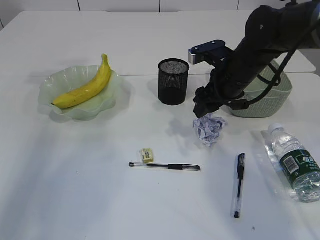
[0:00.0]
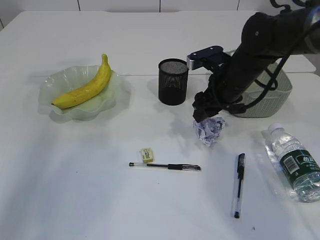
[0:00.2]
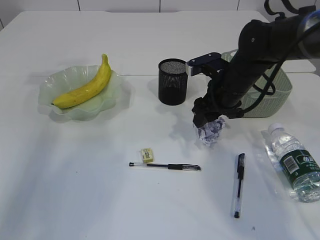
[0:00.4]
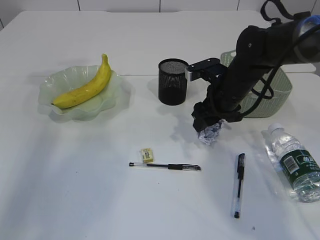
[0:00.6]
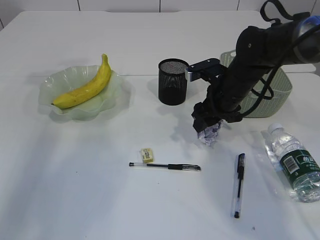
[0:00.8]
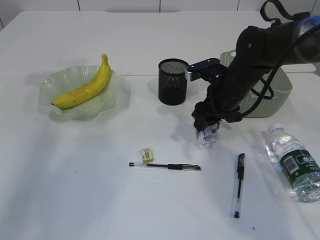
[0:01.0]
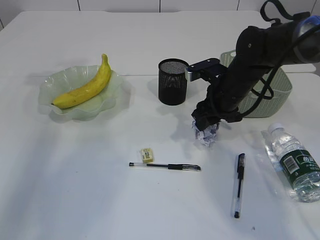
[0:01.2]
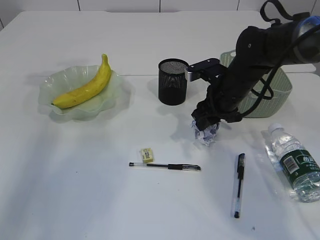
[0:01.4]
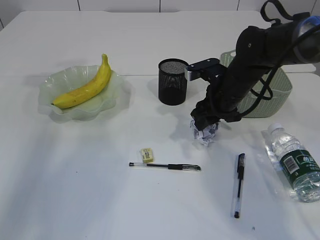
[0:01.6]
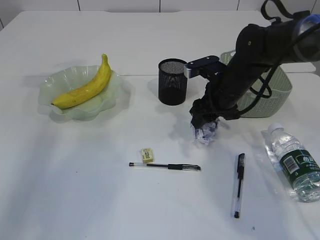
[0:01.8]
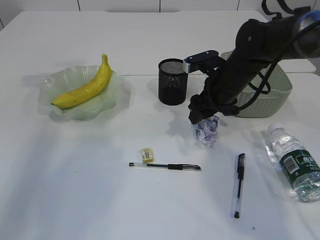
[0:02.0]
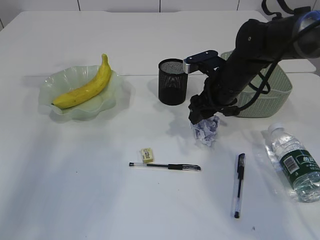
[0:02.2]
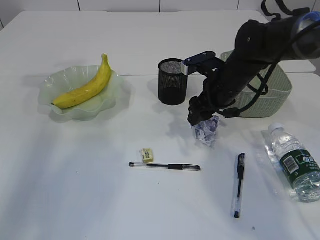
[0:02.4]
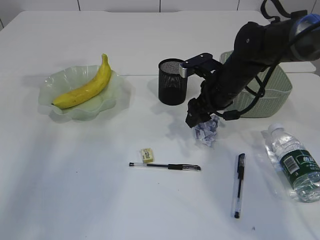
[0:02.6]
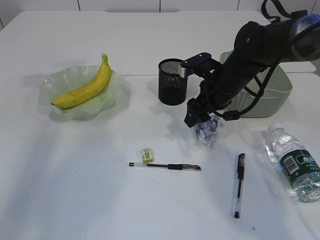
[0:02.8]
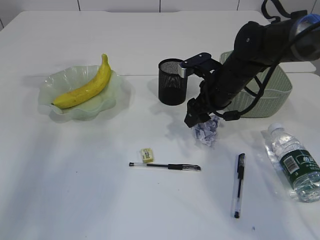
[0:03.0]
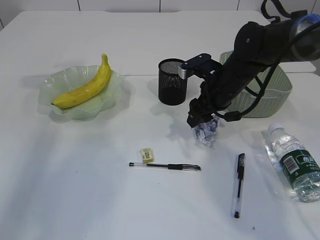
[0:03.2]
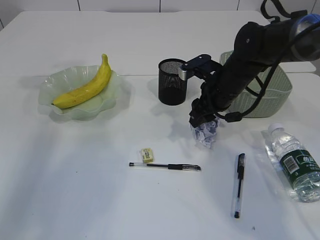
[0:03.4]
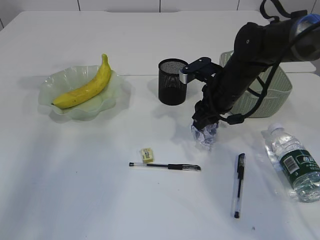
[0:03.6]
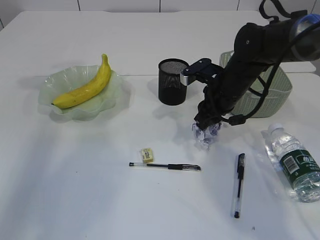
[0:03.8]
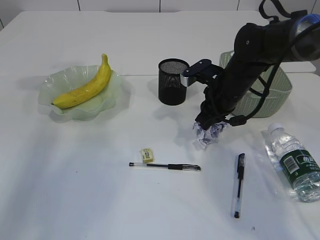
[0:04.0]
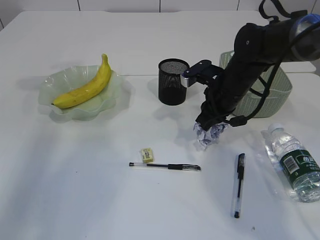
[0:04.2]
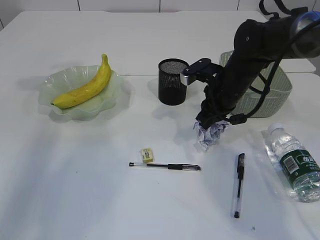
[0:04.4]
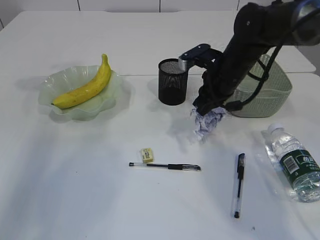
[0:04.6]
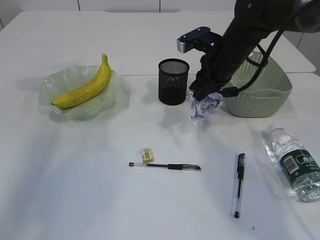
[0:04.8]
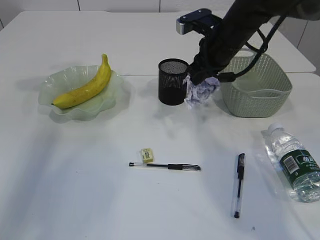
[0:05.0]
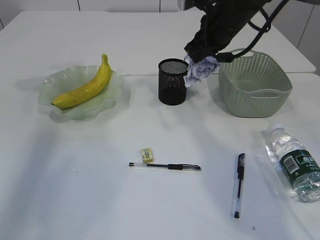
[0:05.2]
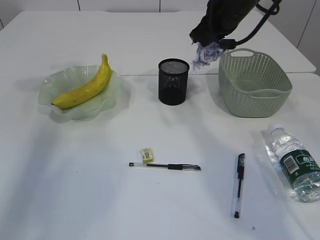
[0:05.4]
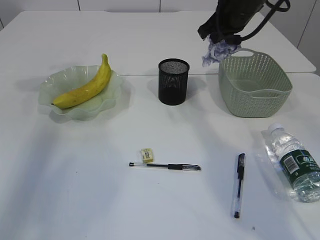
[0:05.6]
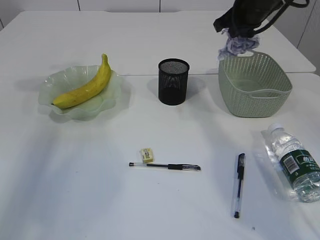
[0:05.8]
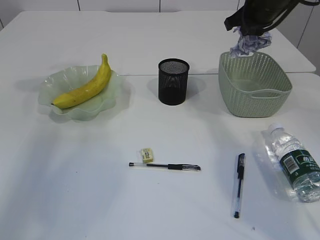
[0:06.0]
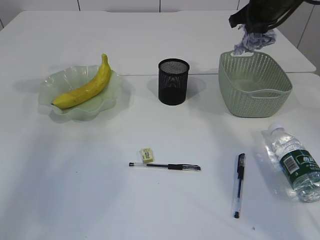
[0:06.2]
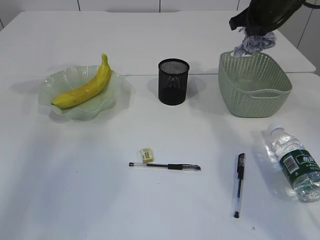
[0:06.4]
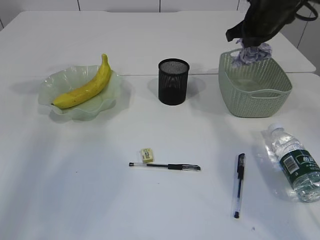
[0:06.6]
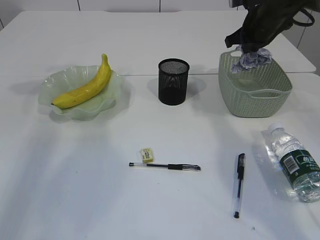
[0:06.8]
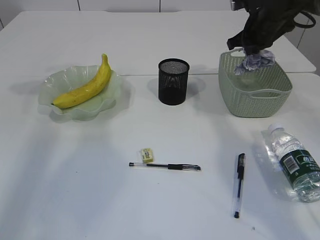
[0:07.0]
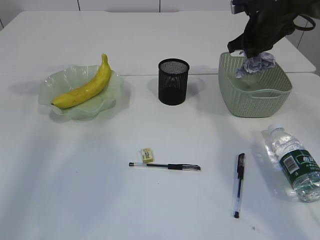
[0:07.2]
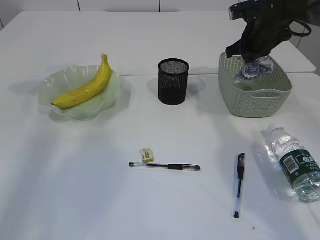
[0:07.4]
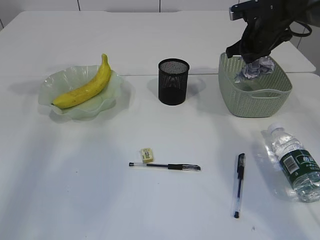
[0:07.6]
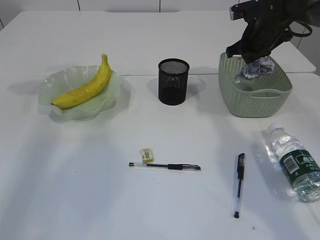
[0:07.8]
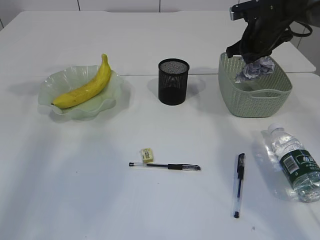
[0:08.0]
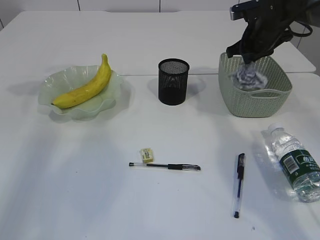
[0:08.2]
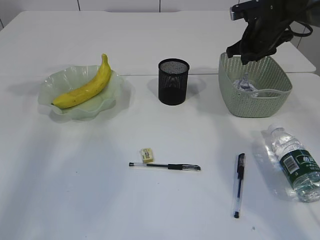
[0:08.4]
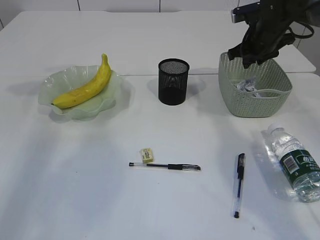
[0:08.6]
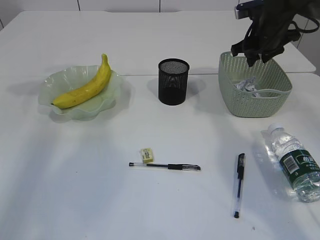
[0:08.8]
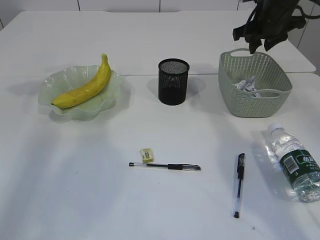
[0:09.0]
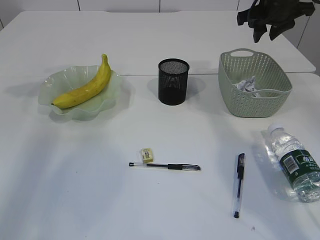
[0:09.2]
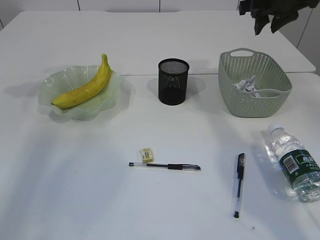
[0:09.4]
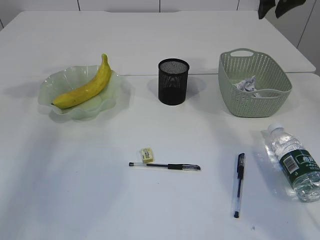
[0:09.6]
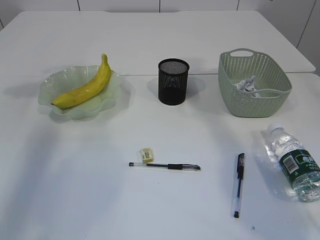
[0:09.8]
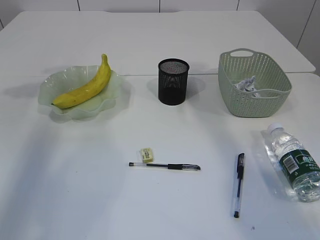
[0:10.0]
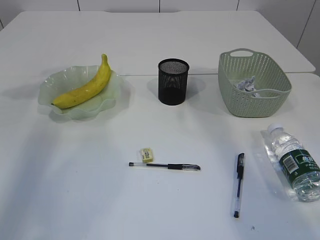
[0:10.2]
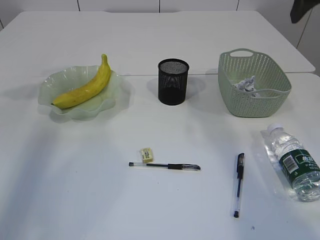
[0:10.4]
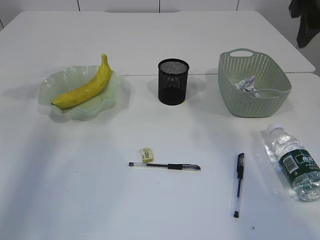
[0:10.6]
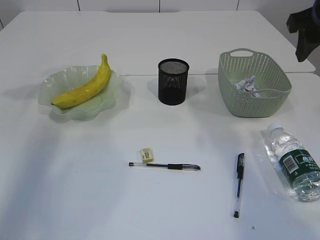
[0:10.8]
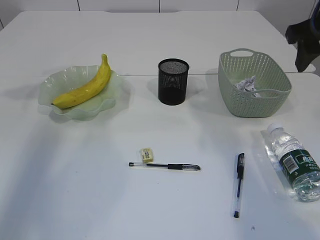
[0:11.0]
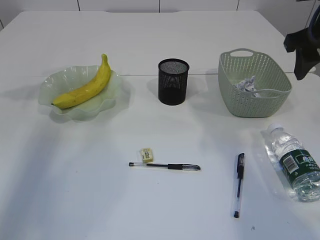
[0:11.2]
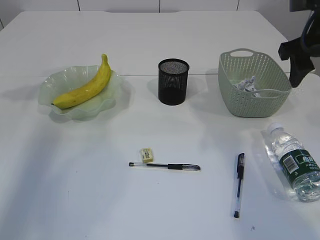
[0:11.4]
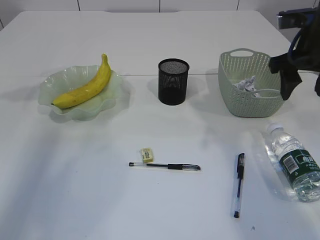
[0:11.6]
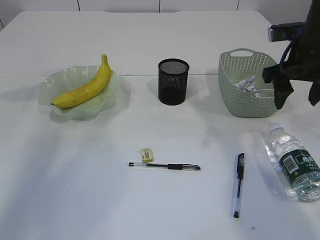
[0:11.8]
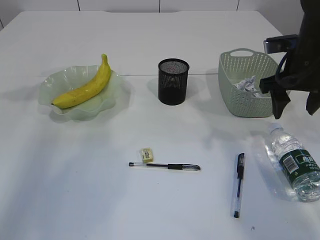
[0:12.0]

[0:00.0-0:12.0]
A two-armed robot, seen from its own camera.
Step, 0:00.0 to 0:04.6: Pick up the waste paper.
Step, 0:04.8 to 0:08.8: Place the waste paper in the basket.
0:00.0 to 0:03.0: The grippers stay close to where they were, moving slightly.
0:03.0 to 0:04.4: The right gripper closes up.
0:04.4 to 0:06.0: The right gripper shifts some 15 cm upward, to the right and forward.
0:06.0 to 0:07.6: The right gripper travels downward by approximately 5 cm.
0:07.6 to 0:09.0: The right gripper opens up.
0:09.0 to 0:10.4: The right gripper shifts roughly 20 cm backward and upward.
0:10.4 to 0:12.0: The right gripper is displaced downward by some 15 cm.

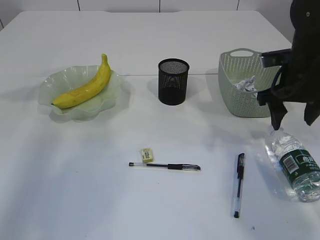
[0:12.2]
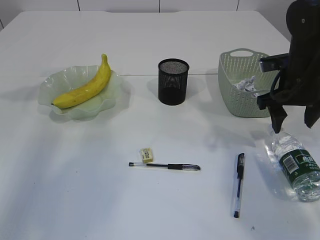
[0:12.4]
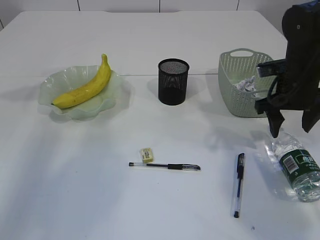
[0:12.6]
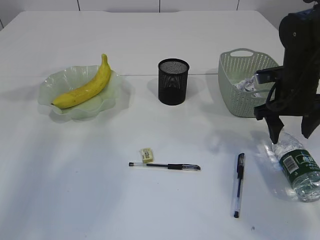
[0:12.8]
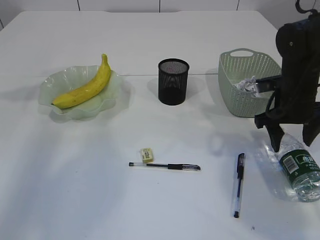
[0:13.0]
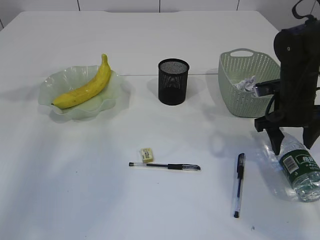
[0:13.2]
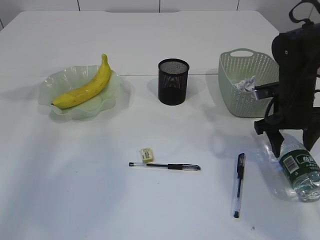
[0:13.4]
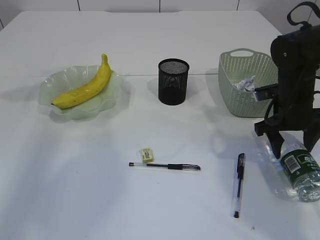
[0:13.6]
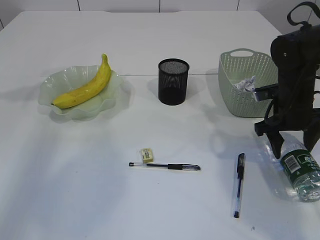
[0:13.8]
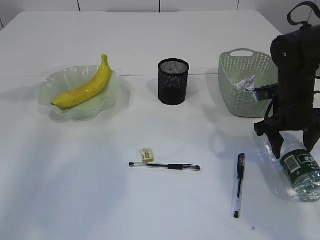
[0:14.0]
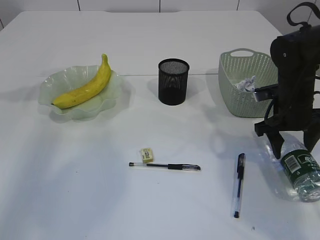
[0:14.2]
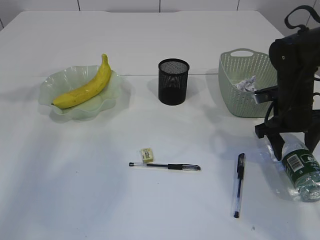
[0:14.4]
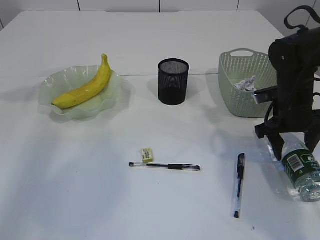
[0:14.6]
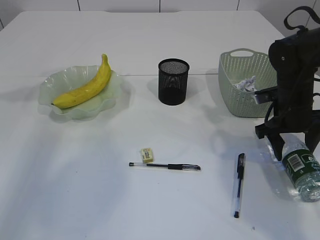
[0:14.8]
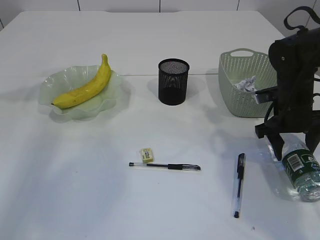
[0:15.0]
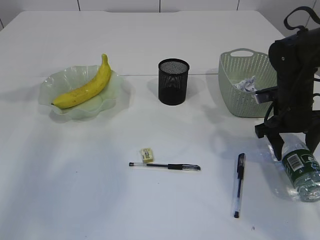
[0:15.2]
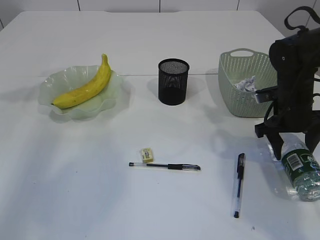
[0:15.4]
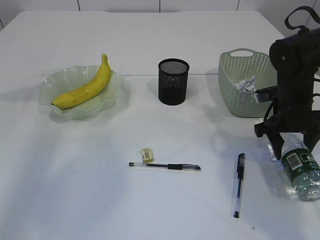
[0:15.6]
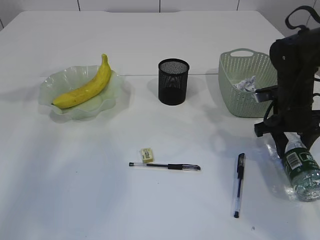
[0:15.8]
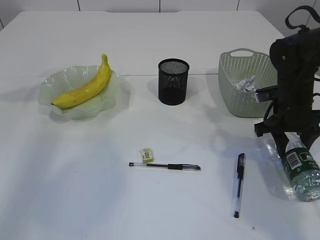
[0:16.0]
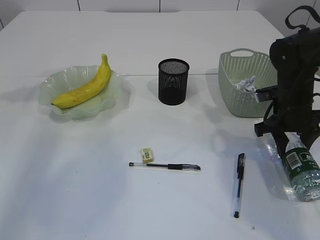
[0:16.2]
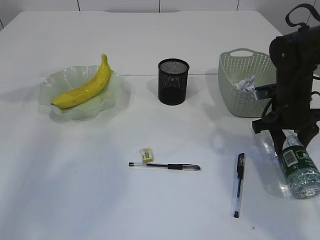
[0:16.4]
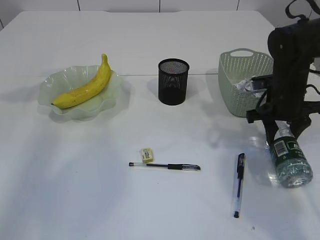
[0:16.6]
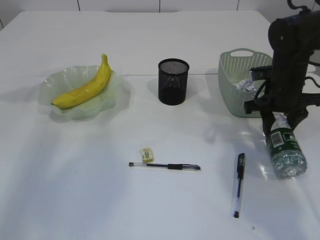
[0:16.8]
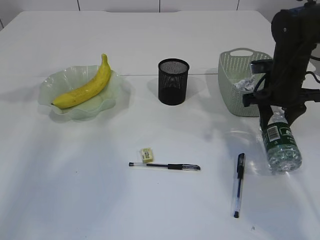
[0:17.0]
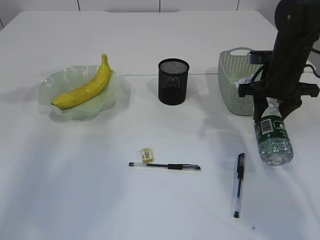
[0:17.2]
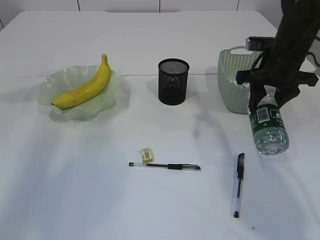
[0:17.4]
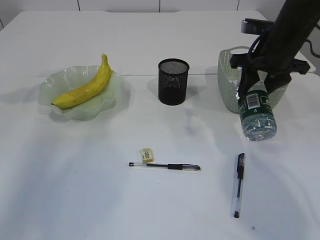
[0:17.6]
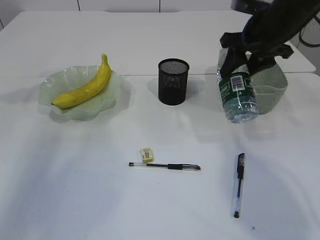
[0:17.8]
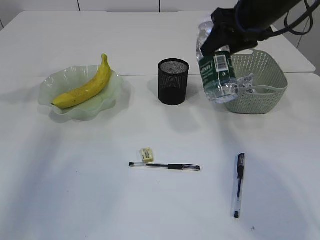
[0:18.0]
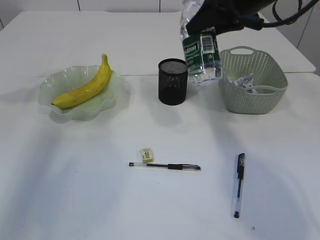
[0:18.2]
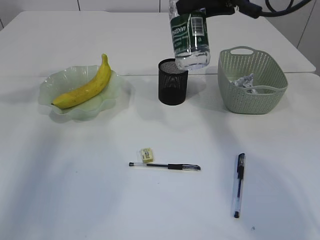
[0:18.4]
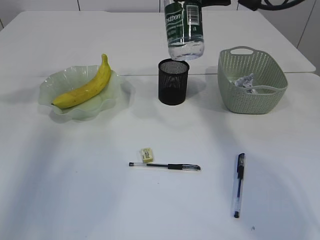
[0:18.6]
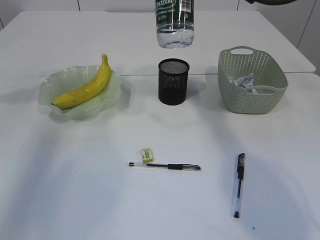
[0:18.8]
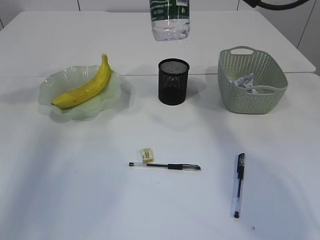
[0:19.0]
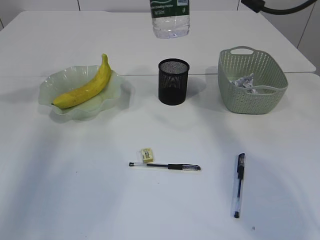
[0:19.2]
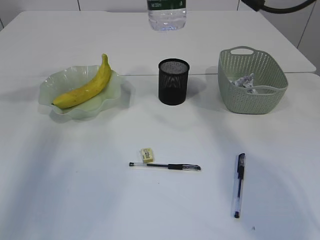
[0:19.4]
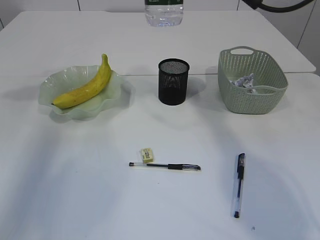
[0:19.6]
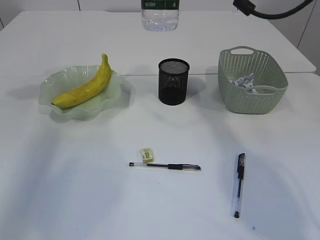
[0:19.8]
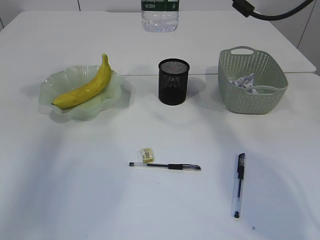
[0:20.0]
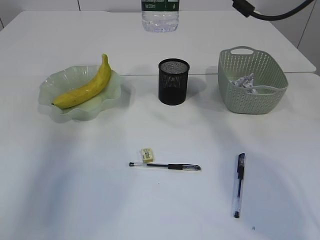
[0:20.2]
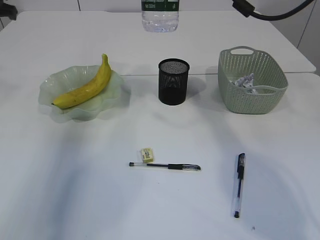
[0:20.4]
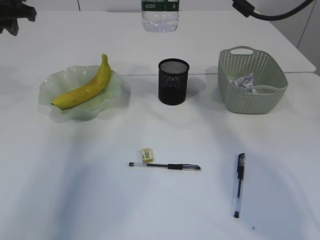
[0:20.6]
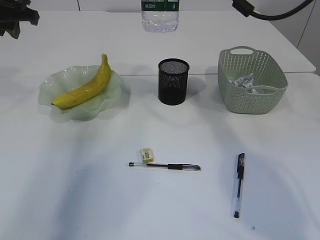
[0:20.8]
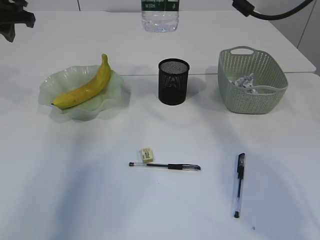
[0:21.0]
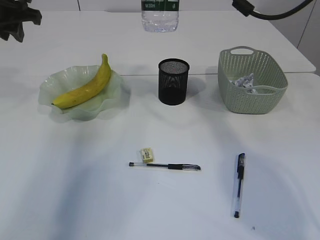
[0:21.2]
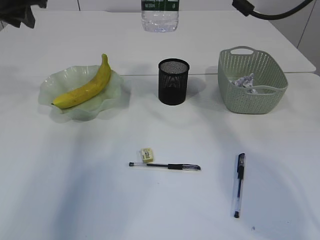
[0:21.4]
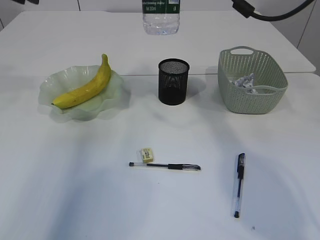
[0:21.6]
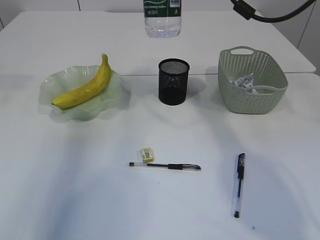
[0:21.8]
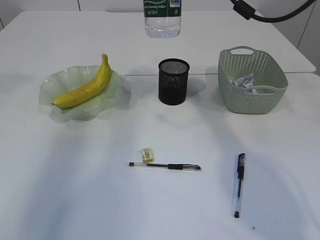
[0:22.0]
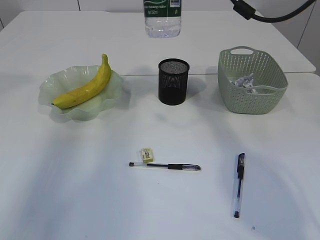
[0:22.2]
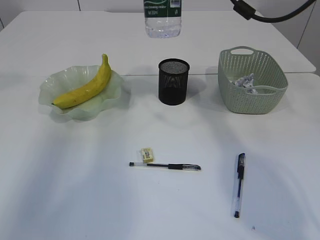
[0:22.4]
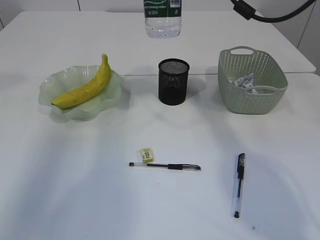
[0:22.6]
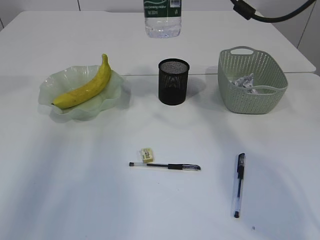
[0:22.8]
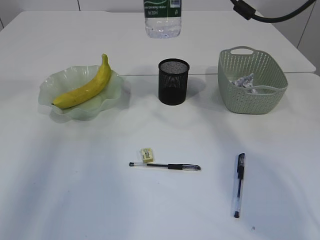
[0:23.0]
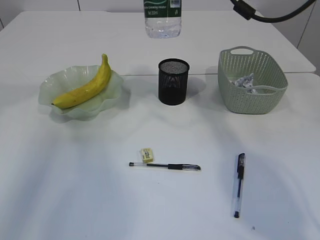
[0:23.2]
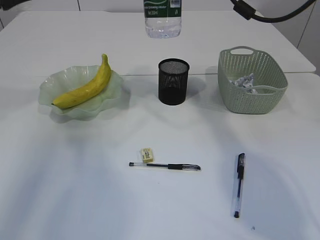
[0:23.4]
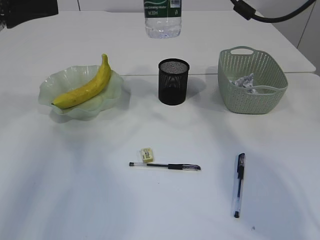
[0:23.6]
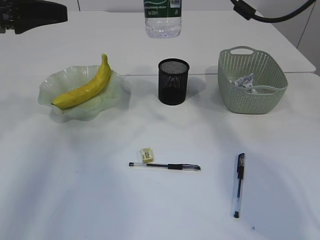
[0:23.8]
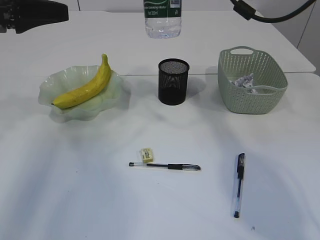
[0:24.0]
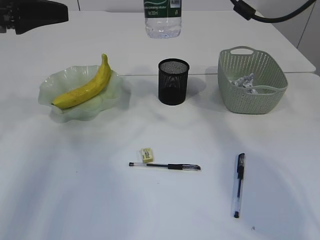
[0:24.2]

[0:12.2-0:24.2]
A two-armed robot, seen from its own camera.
Step, 0:12.2 to 0:17.2: Pick up the bottle with the right arm.
0:12.2 to 0:13.8: The right gripper goes about 5 cm downward.
0:13.8 to 0:15.2: Both grippers stay put.
0:15.2 to 0:16.6: The grippers make only small movements.
0:16.6 to 0:18.2: The right gripper shifts roughly 20 cm upward and to the left.
0:18.2 to 0:19.8: The right gripper moves roughly 5 cm.
0:19.8 to 0:21.2: The left gripper shifts some 15 cm to the right.
0:21.2 to 0:22.6: The left gripper moves upward and backward, approximately 15 cm.
0:22.6 to 0:24.2: The left gripper goes about 15 cm downward.
